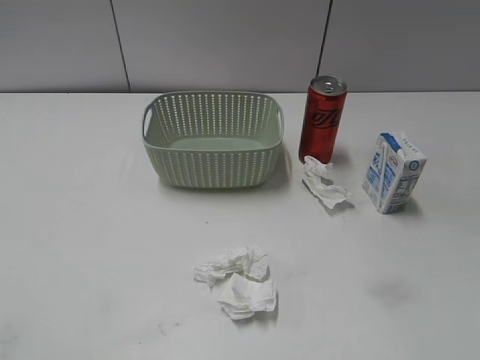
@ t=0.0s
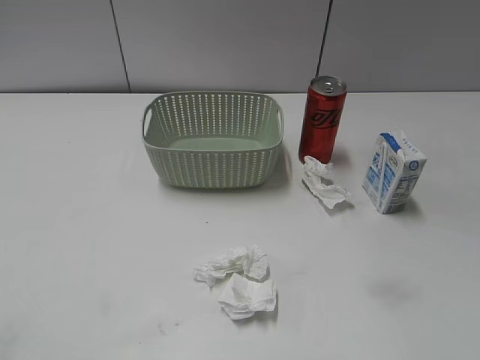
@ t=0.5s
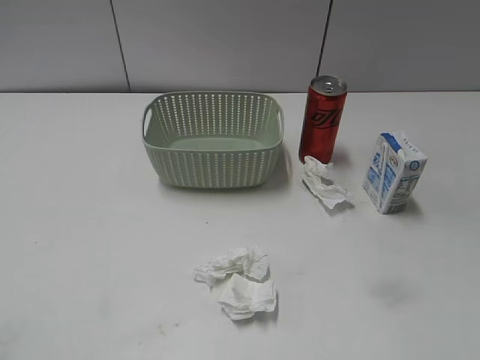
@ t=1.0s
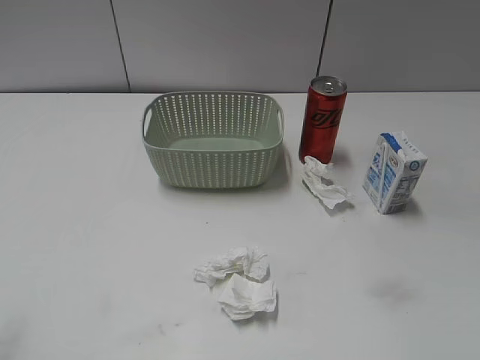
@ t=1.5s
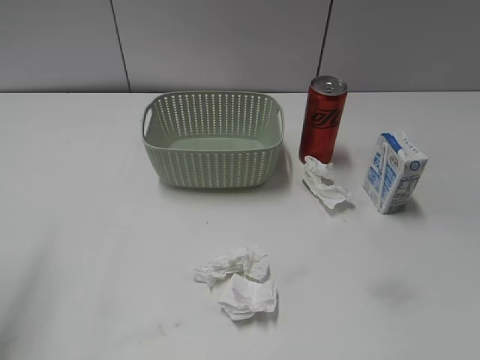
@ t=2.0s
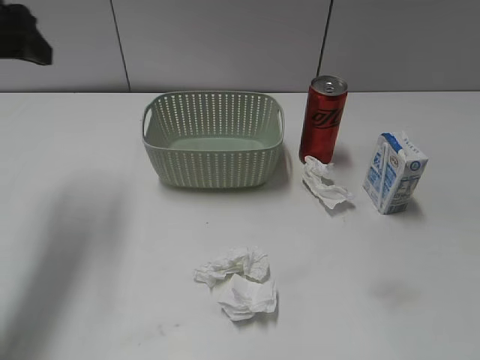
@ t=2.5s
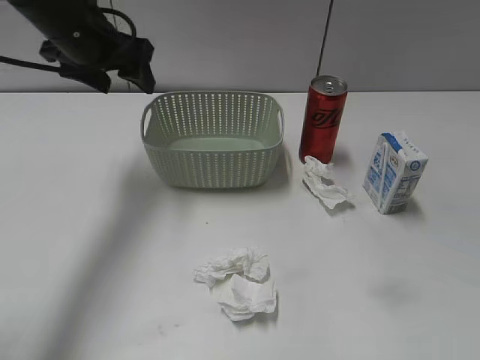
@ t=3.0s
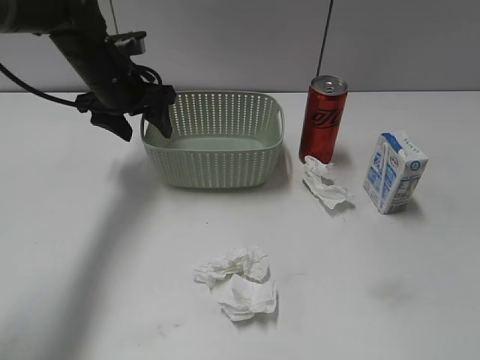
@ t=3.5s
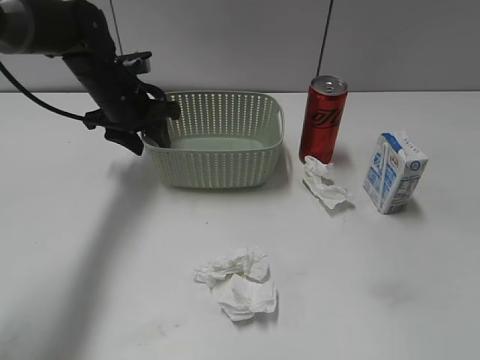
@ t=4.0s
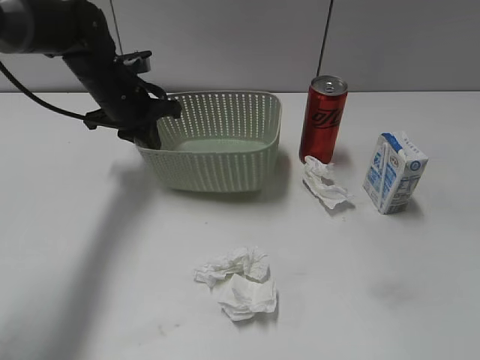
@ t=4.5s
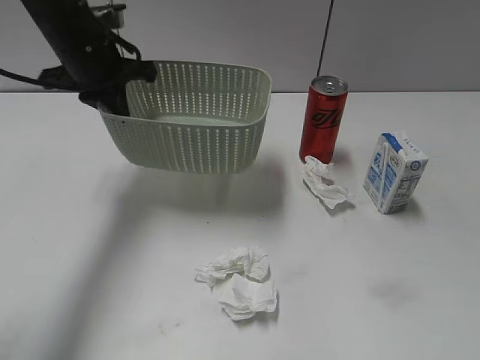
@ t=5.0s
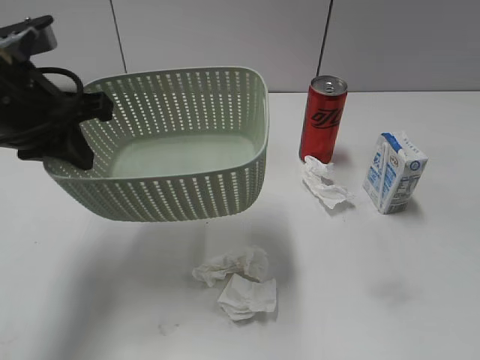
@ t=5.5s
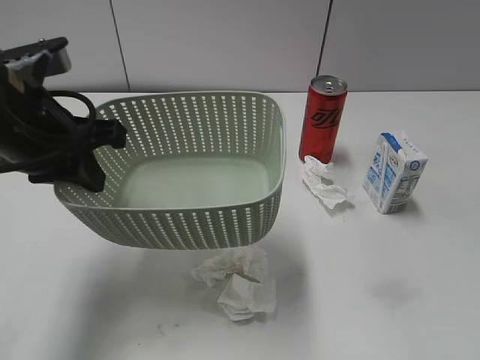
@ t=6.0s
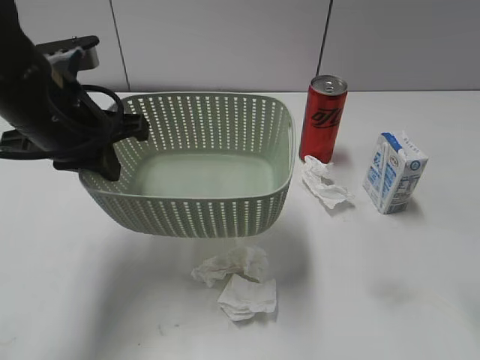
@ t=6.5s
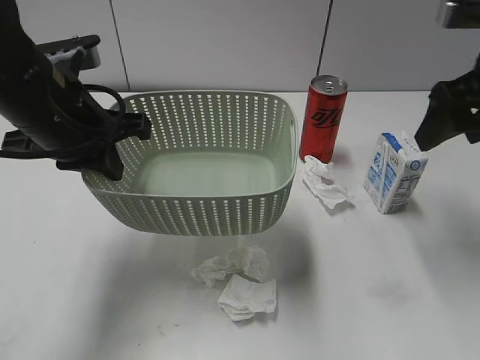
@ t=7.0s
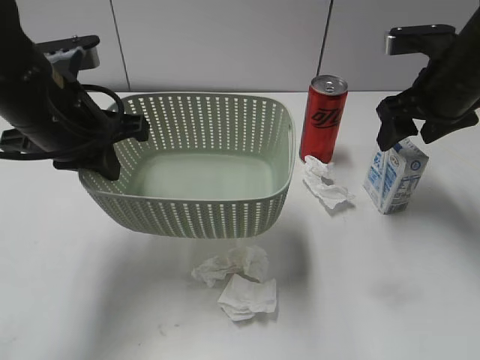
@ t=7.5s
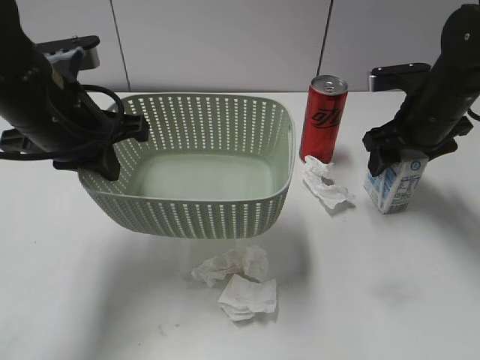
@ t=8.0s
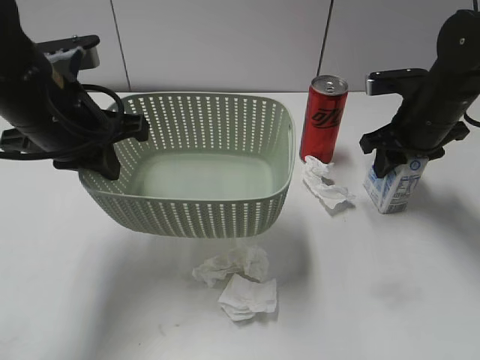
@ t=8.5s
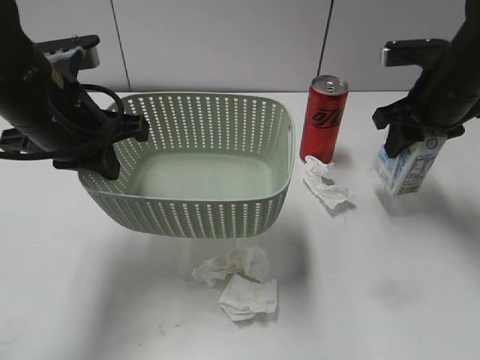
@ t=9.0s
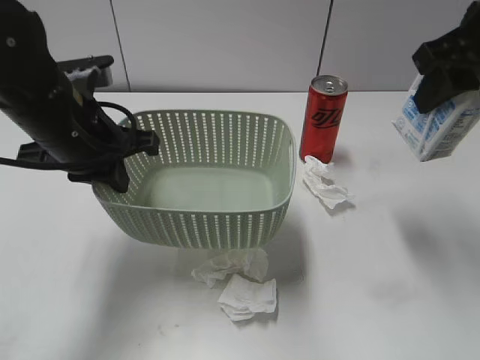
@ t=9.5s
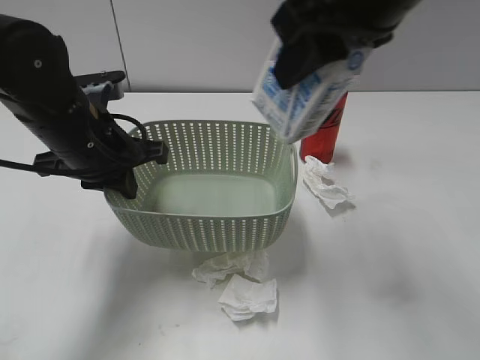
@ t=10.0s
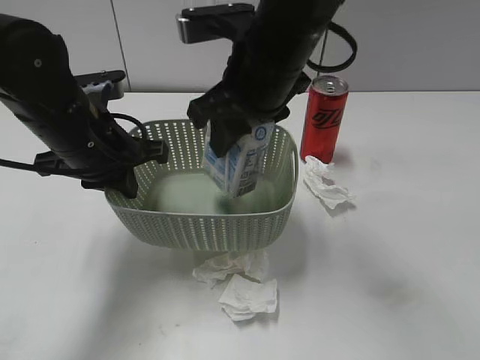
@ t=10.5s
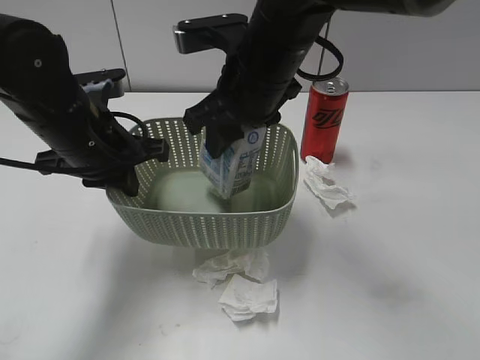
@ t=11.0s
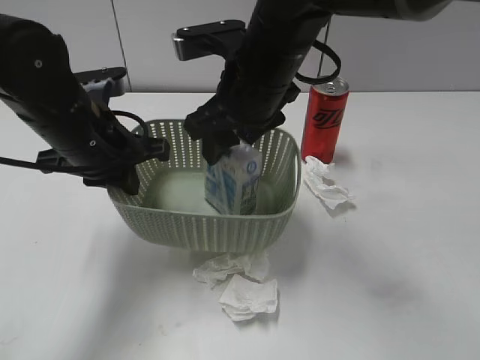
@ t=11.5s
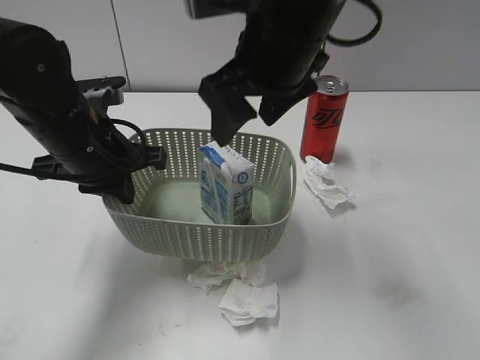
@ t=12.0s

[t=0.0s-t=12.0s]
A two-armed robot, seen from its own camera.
Step, t=2.5s to t=4.0s: Grasp the basket with left gripper.
Step, t=4.5s to t=6.0s: Lift the basket with left gripper.
Step, t=6.5s to t=8.5s: Grasp the milk with right gripper.
Step, t=9.0s to t=12.0s: Place the milk in the basket with right gripper.
t=2.0s to t=4.0s: The left gripper shifts approximately 35 cm forward, downward and to the right, and closes its fingers.
t=4.0s to t=6.0s: The left gripper shifts roughly 20 cm backward and upward, and closes its fingers, while the right gripper shifts about 5 cm forward.
t=6.0s to t=8.0s: The right gripper moves forward and downward, roughly 35 cm.
t=8.0s to t=10.0s: The right gripper heads upward, to the left and backward, covering roughly 25 cm, and closes its fingers.
t=10.0s to t=12.0s: The right gripper shifts approximately 10 cm downward and to the left, and opens.

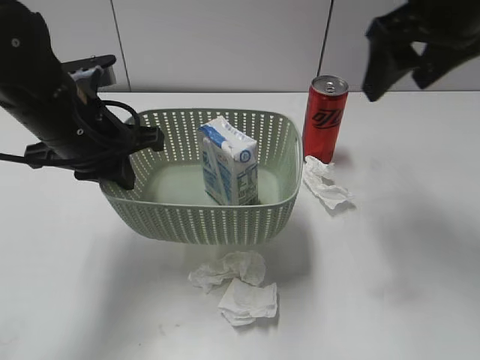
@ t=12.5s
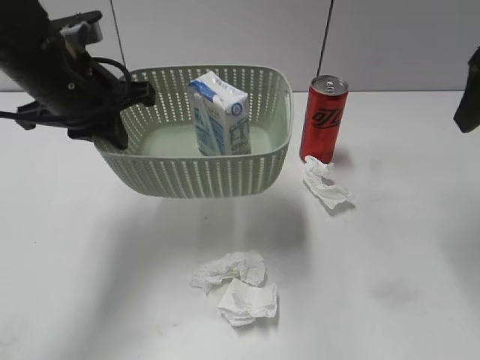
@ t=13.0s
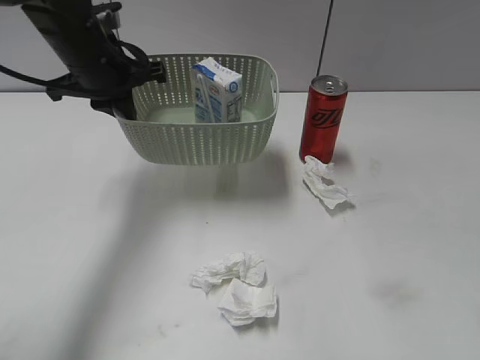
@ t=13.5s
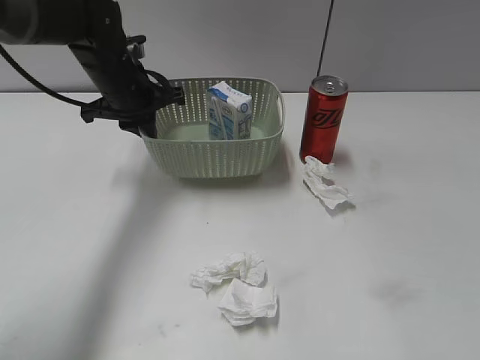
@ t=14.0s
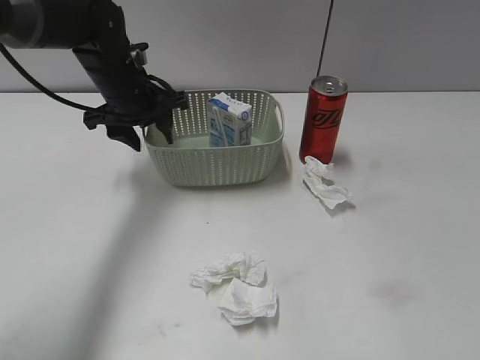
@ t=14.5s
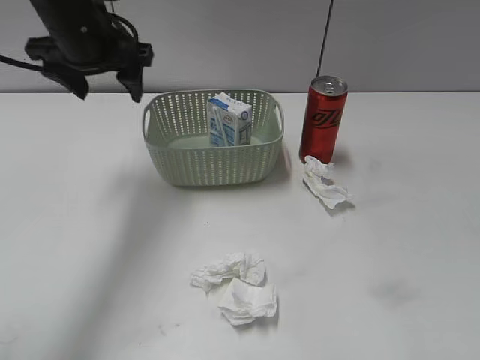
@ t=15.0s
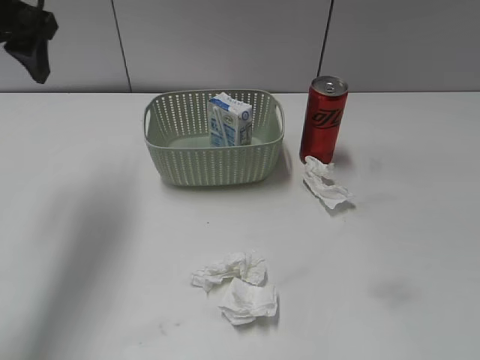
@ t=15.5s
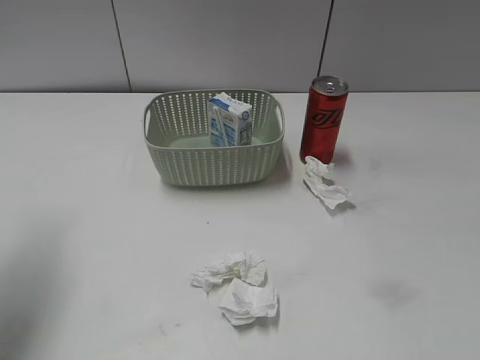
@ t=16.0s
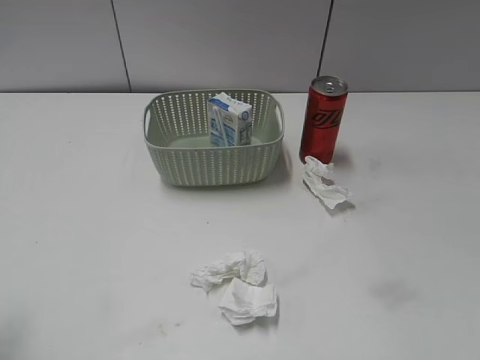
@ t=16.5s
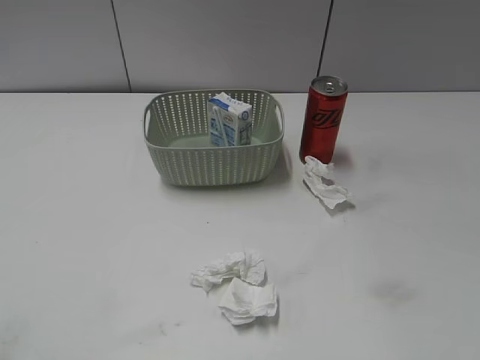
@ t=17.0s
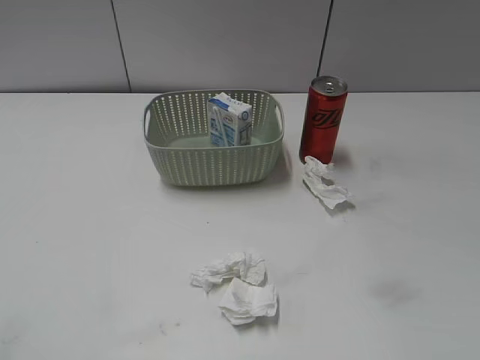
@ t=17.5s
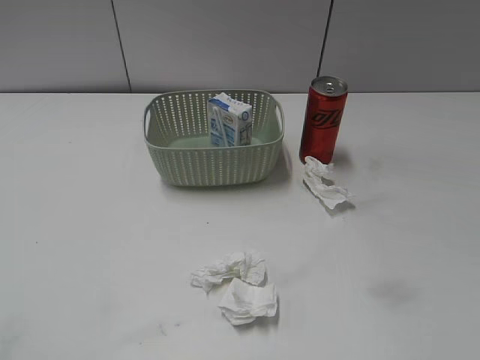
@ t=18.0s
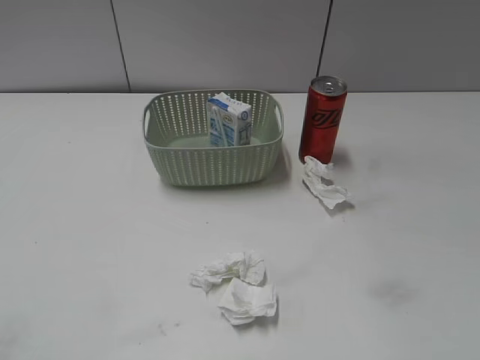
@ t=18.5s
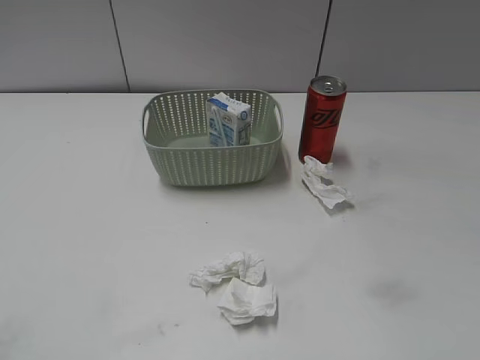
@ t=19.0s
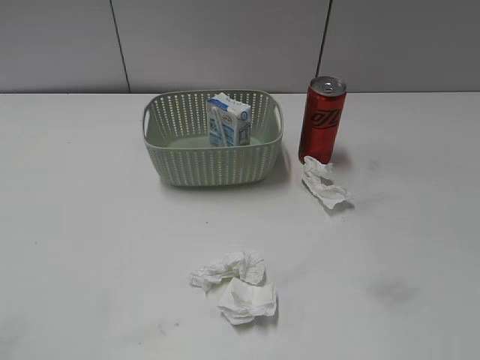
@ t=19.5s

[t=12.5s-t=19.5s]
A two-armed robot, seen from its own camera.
Step, t=12.5s to t=14.5s: Place the basket on the table with left gripper.
t=12.5s to t=14.5s: The right gripper moves backward and to the right, some 25 cm. Meanwhile the left gripper travels forward by approximately 15 cm, and opens.
t=14.5s to t=16.0s: The right gripper is displaced backward and downward by roughly 15 cm; the left gripper goes about 30 cm backward, to the left and upward.
t=16.0s to t=17.5s: The left gripper goes some 25 cm backward.
t=17.5s to t=19.5s: Both grippers stay put.

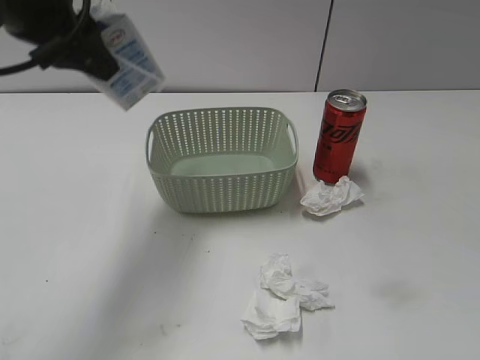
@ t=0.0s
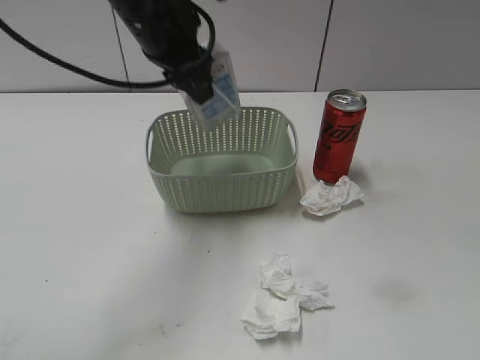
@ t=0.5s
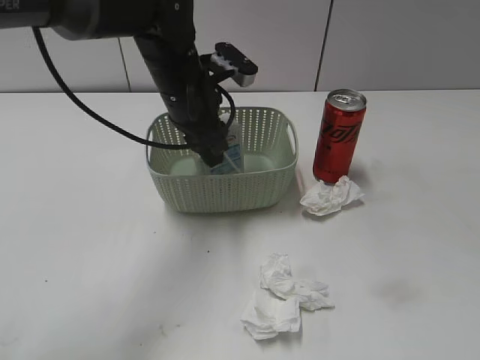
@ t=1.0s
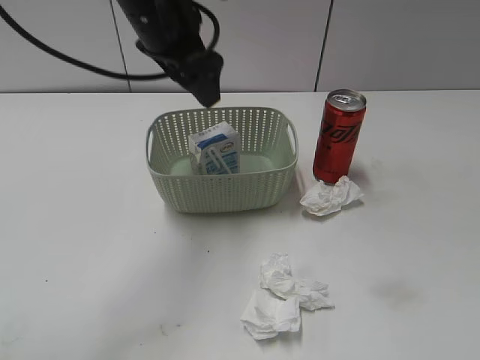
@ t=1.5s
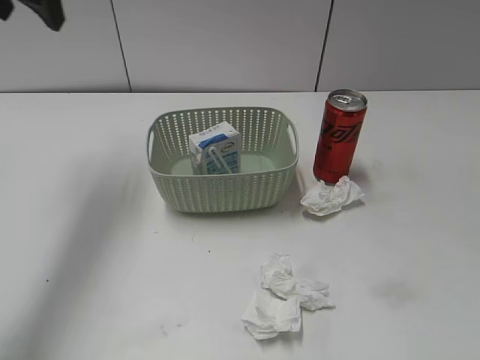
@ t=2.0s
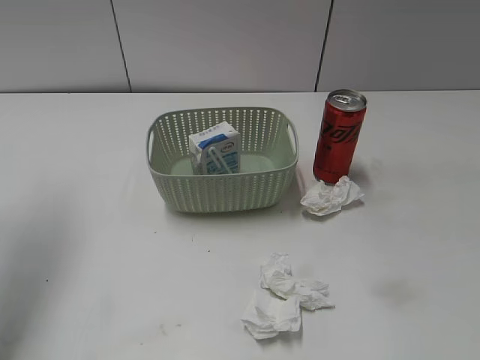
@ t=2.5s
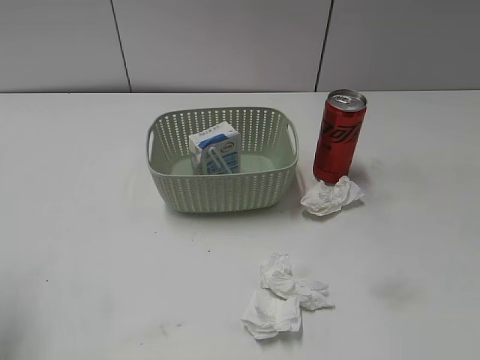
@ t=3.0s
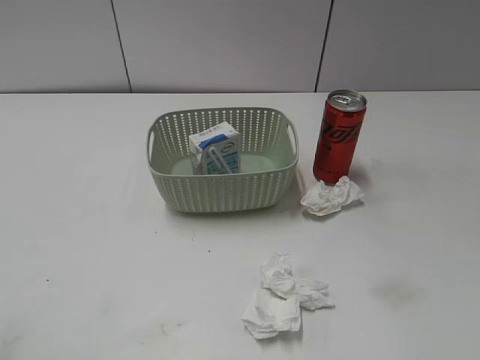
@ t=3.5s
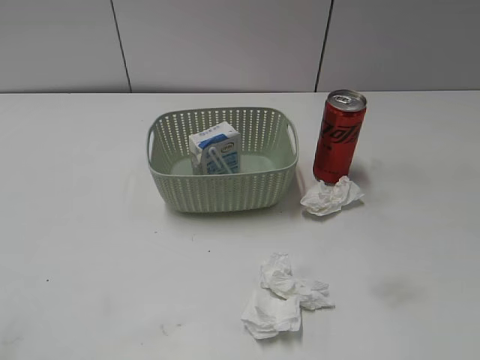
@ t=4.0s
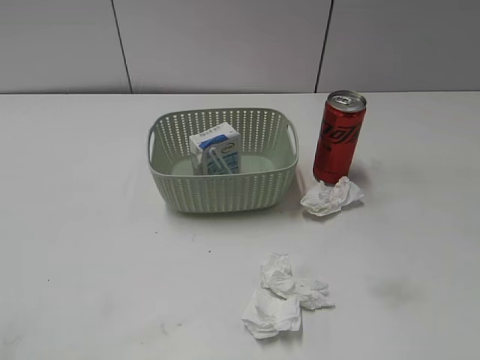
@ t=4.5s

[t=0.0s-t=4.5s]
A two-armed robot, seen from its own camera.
Step, t=0.0s to t=1.5s: Place the milk in the basket with left gripper.
t=0.0s to t=2.0s: The left gripper moves forward, approximately 10 cm, goes to the right and returns, approximately 10 cm each way, and opens up.
t=2.0s to t=4.5s: The left gripper goes approximately 40 cm backward.
